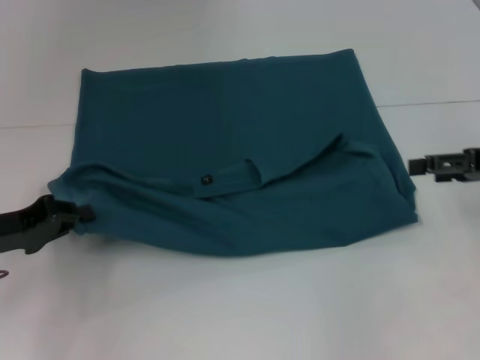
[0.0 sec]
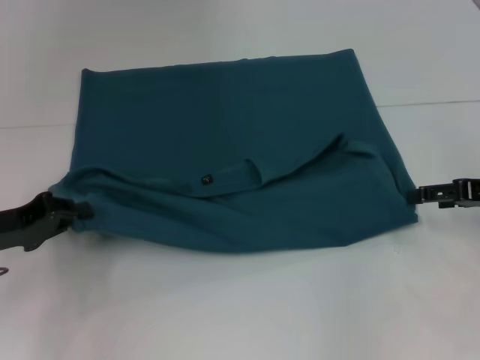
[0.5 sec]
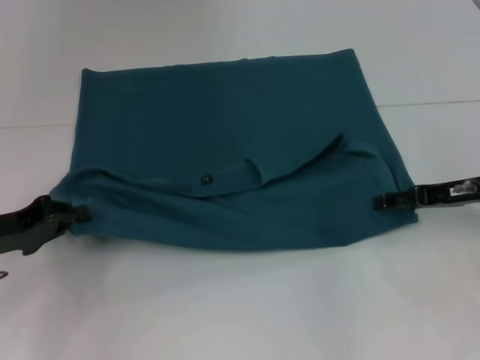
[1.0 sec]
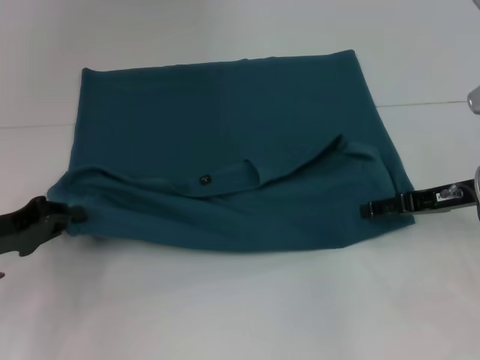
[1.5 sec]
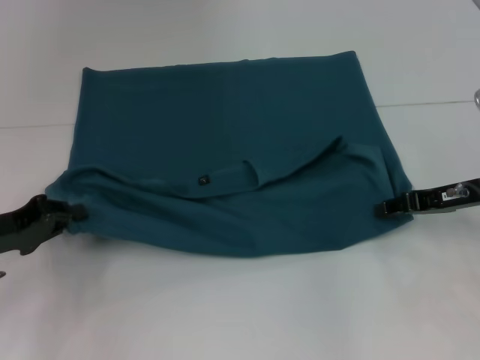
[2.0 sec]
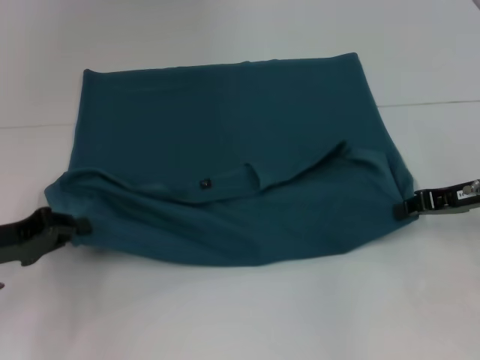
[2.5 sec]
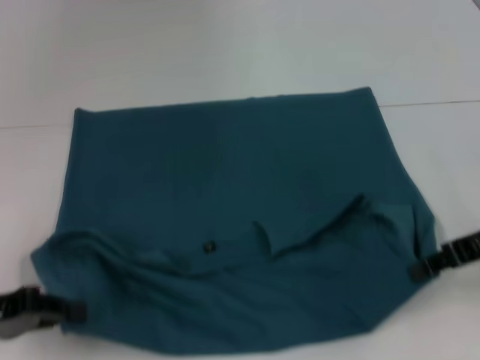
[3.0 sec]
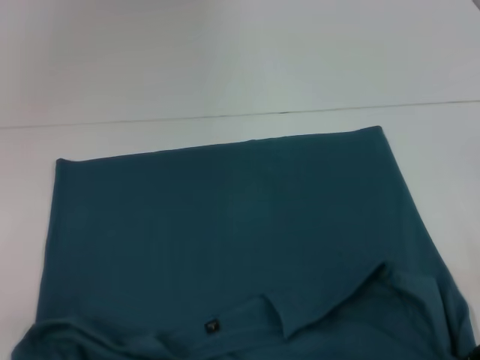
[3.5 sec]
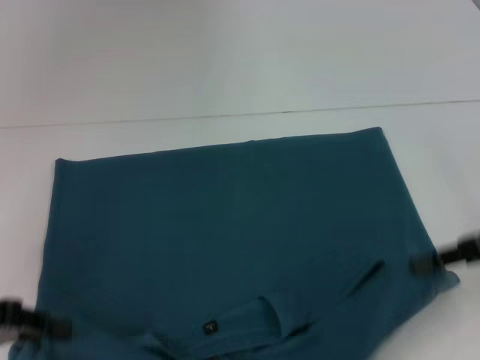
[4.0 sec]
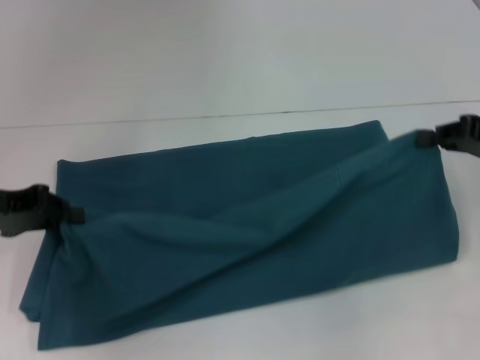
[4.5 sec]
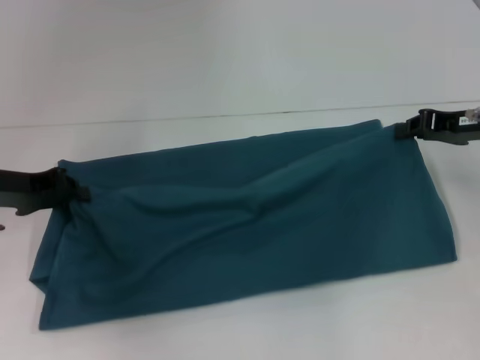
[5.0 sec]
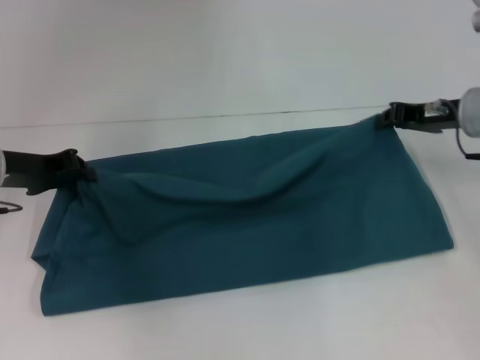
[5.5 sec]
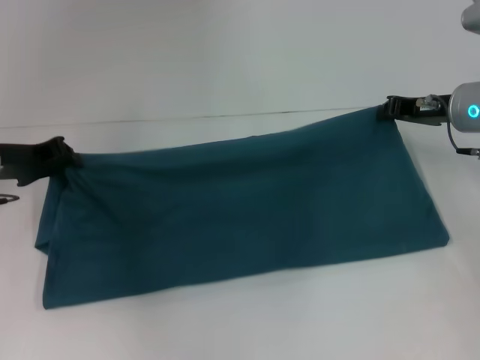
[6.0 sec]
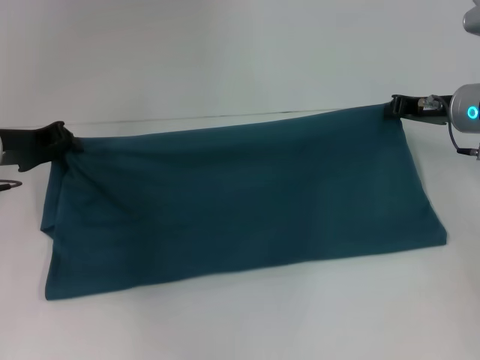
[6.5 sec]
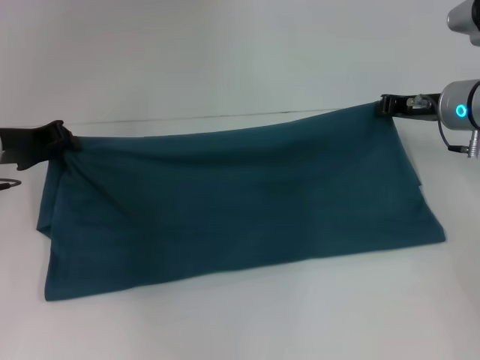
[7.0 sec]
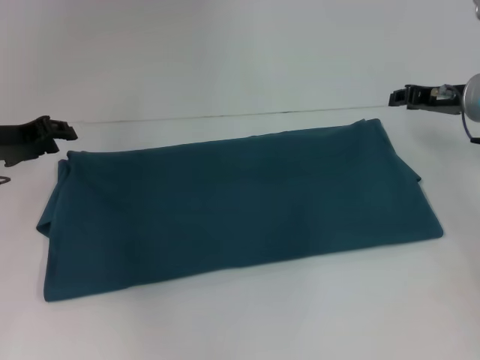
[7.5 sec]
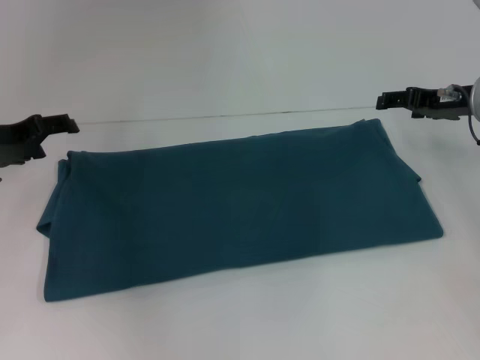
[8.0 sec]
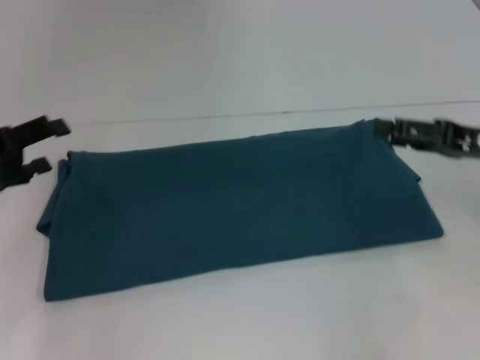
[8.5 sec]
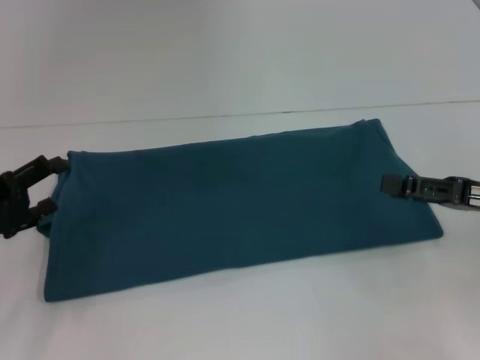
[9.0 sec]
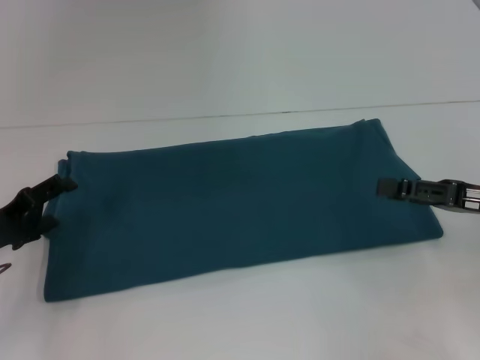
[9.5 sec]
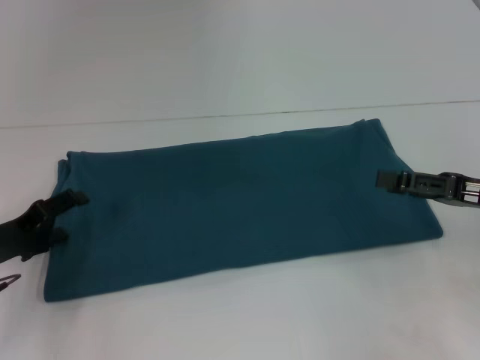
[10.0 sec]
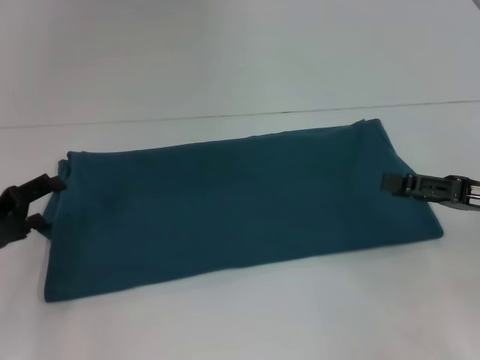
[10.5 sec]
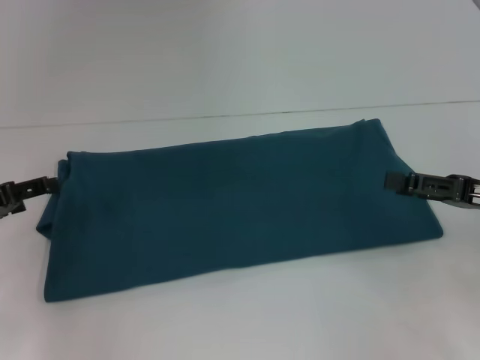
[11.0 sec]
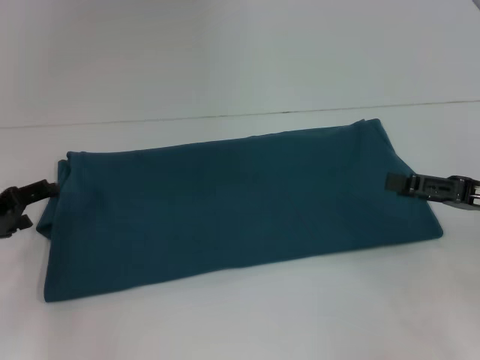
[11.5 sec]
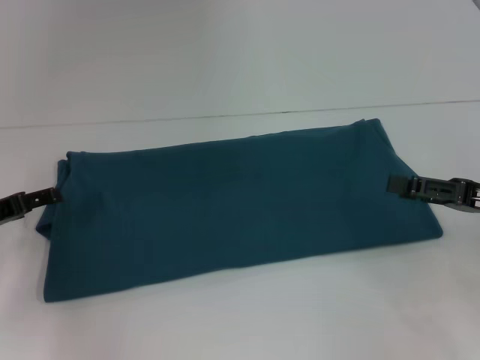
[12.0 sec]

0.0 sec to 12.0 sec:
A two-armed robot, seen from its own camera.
Step, 0.0 sec to 3.0 sec: Pull the clothes with your left hand.
Step, 0.0 sec to 3.0 sec: Pull the clothes with your right hand.
Step, 3.5 sec to 7.5 sec: Fold the clothes to the right.
0.0 sec to 2.0 sec: The right gripper travels to the left and downward by about 10 cm, and closes its fingers.
2.0 sec to 4.0 sec: The left gripper heads backward, covering roughly 5 cm. Meanwhile the right gripper travels backward and upward by roughly 10 cm, and closes its fingers.
4.0 sec to 6.0 sec: The grippers both shift forward by approximately 15 cm.
6.0 sec to 8.0 sec: The right gripper opens; the left gripper opens.
8.0 sec to 10.0 sec: The left gripper goes about 15 cm backward and downward. Meanwhile the right gripper travels backward by about 15 cm.

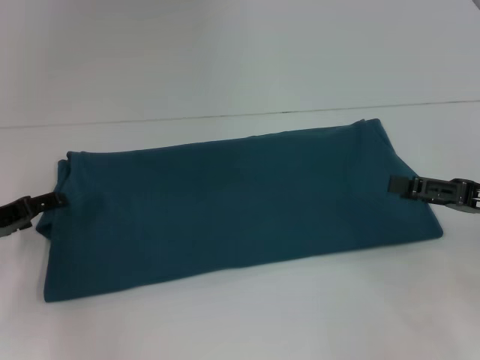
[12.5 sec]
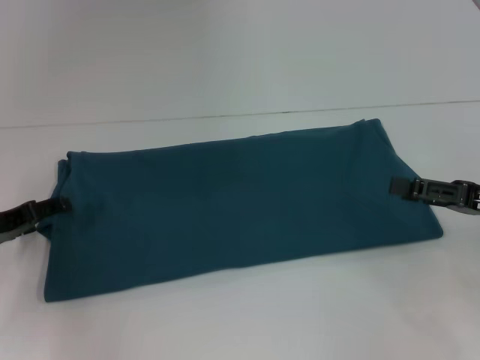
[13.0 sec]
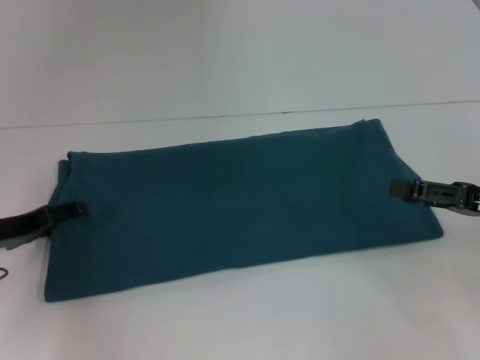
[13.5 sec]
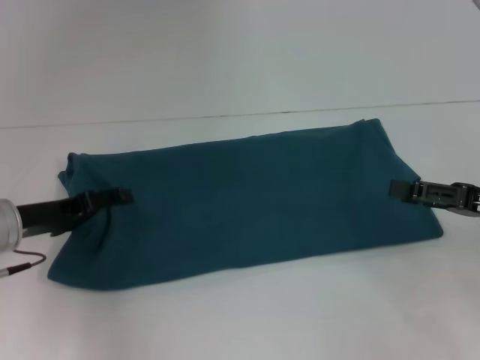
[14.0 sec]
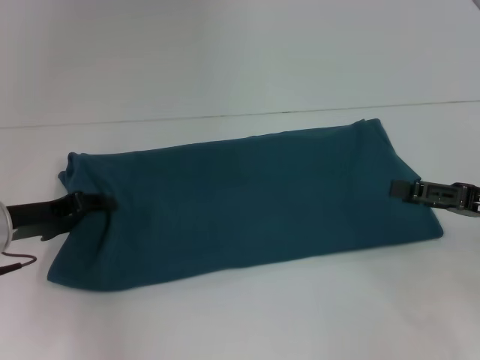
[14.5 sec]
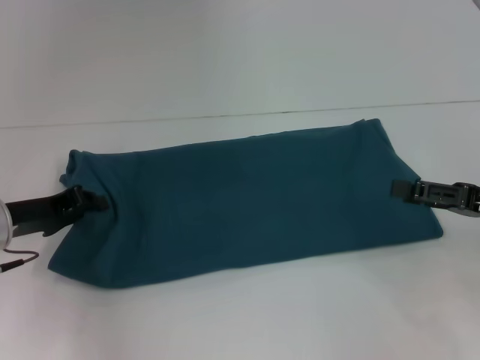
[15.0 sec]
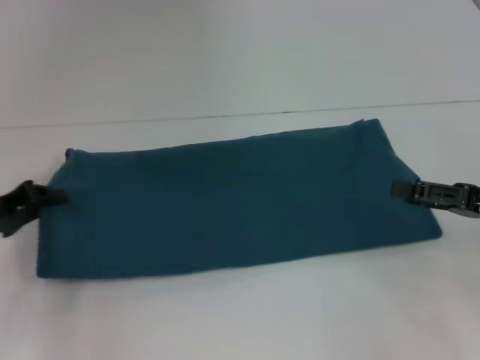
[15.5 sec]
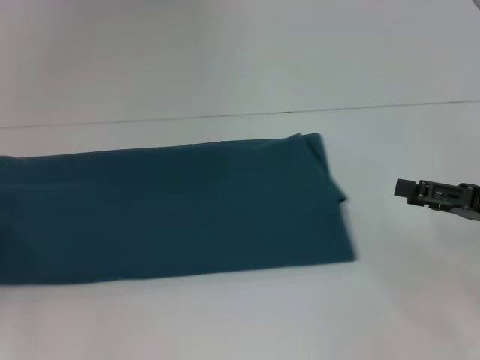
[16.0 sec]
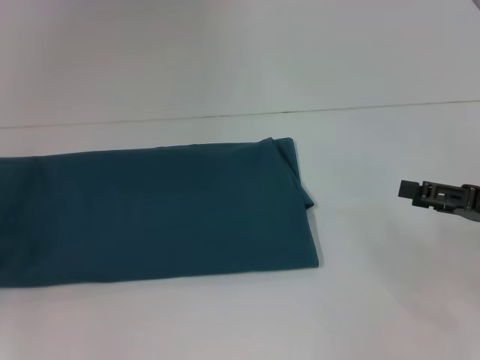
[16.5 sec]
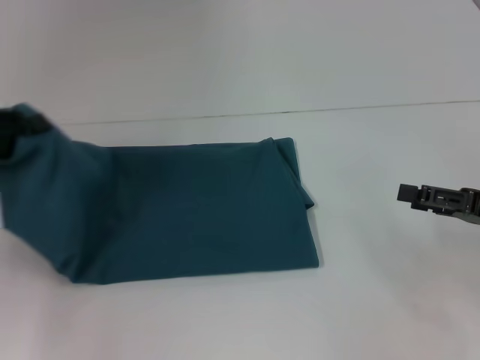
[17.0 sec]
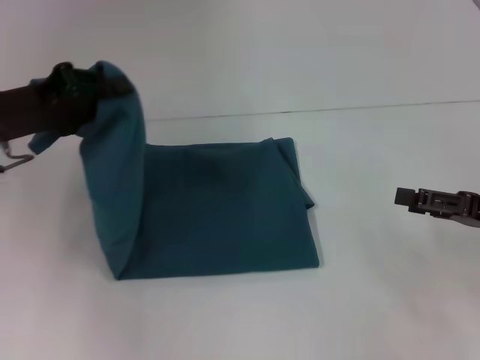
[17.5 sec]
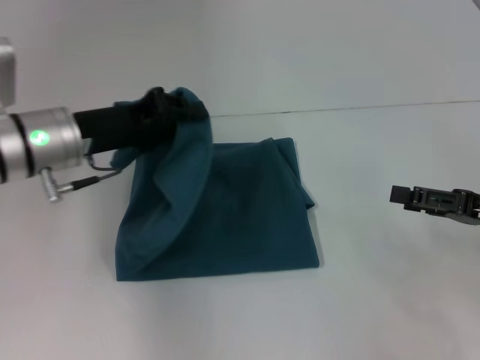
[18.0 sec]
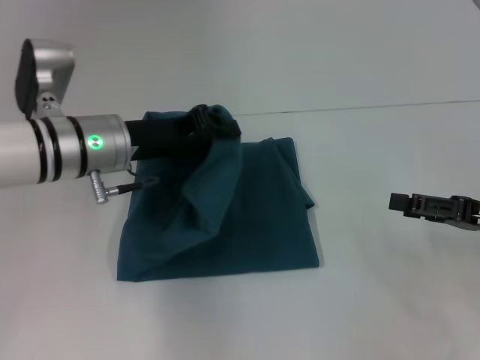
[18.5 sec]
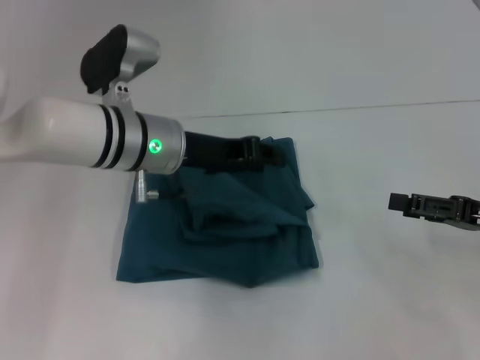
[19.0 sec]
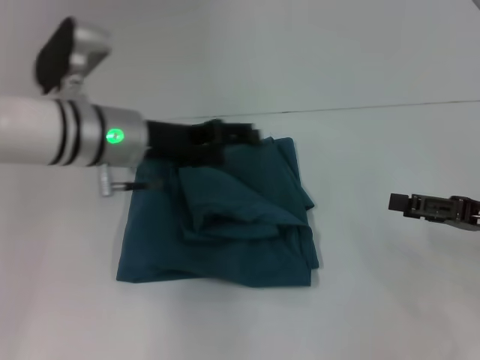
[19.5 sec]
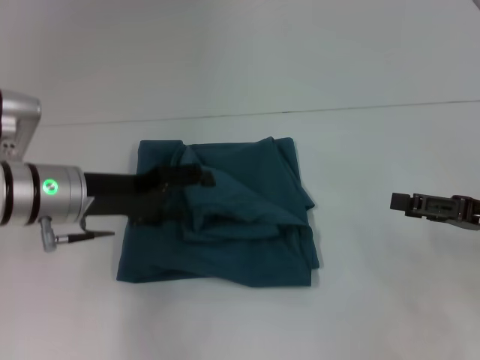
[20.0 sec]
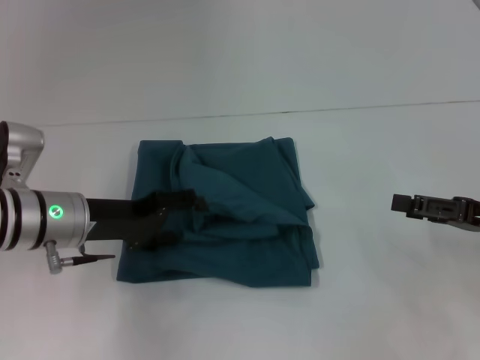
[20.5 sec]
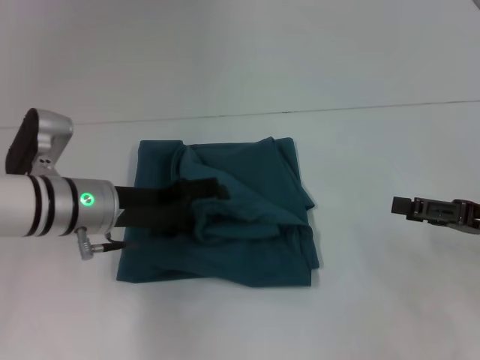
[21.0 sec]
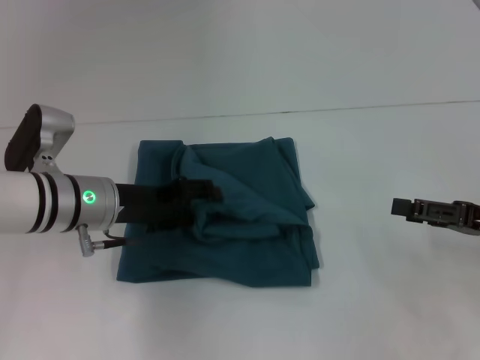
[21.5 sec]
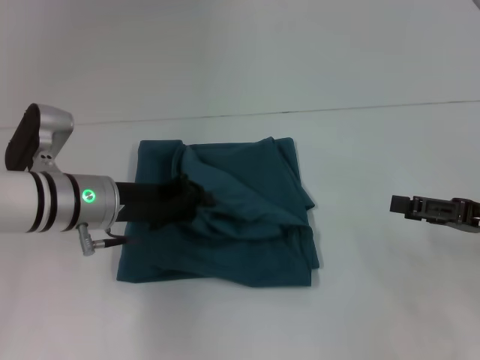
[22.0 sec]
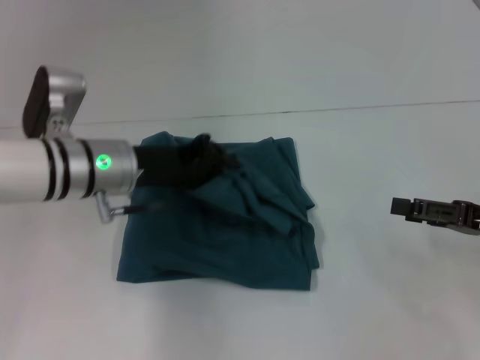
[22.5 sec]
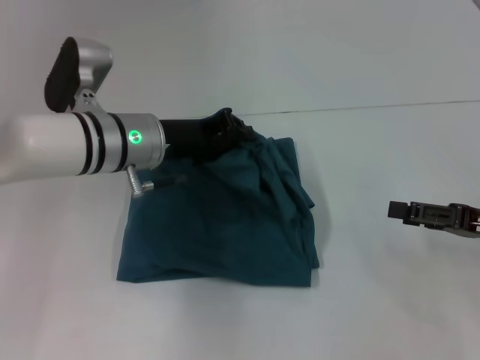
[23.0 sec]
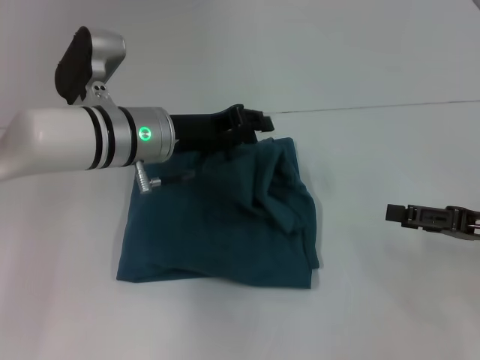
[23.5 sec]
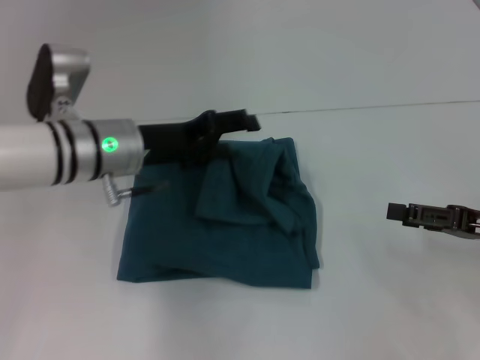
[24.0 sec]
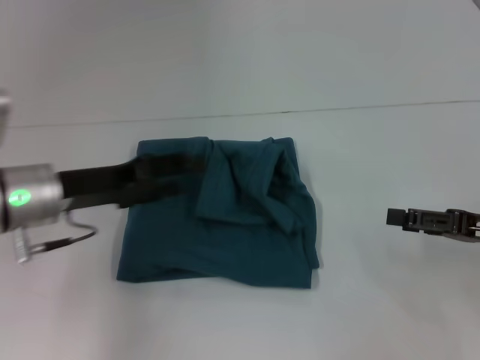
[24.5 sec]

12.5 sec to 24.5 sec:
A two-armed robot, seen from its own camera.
Step, 12.5 sec to 24.0 sec: Fold the clothes to the left.
12.5 sec to 14.5 sec: The grippers stay close to where they were, moving slightly.
14.5 sec to 16.5 sec: The left gripper is displaced to the left by roughly 15 cm, and closes.
16.5 sec to 18.5 sec: The left gripper is displaced to the right by about 25 cm.
18.5 sec to 20.5 sec: The left gripper ends up approximately 10 cm from where it was, and opens up.
20.5 sec to 22.5 sec: The left gripper travels to the right by approximately 5 cm, and closes its fingers.
22.5 sec to 24.5 sec: The left gripper travels to the left by approximately 5 cm, and opens up.

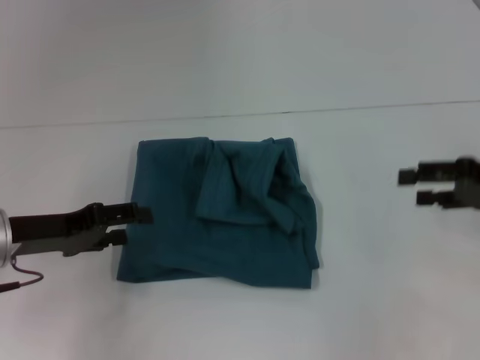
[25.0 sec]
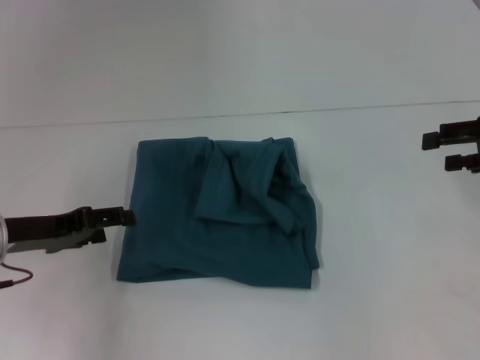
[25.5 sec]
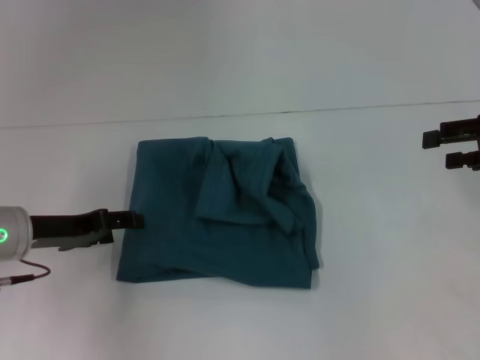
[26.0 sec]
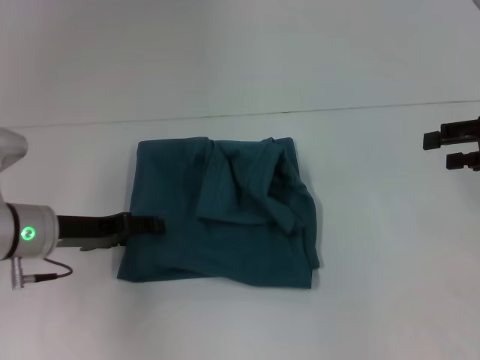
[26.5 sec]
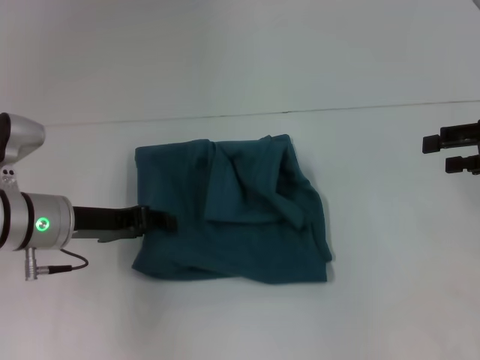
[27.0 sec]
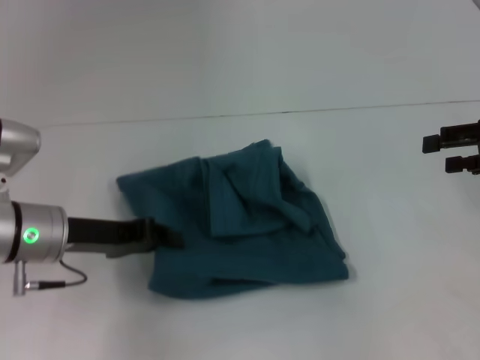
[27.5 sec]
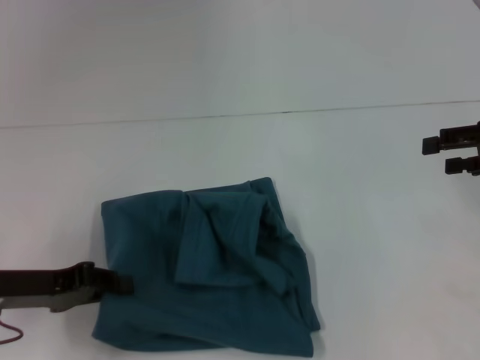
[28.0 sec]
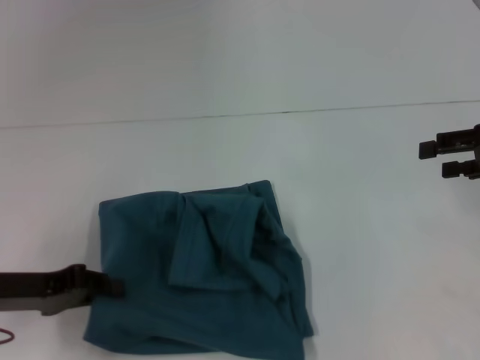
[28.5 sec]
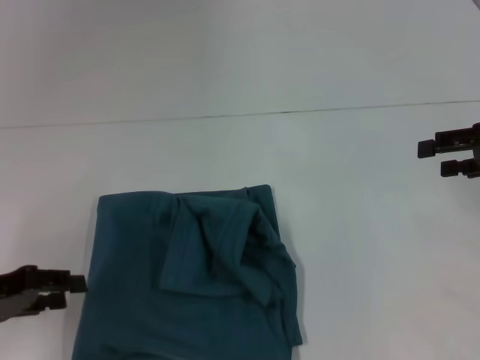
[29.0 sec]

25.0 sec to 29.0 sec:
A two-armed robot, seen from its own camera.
25.0 sec to 27.0 sec: The right gripper moves some 5 cm; the left gripper ends up about 5 cm from where it was.
27.0 sec to 29.0 sec: The left gripper moves to the left and backward, about 15 cm.
